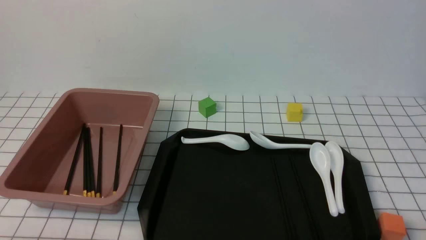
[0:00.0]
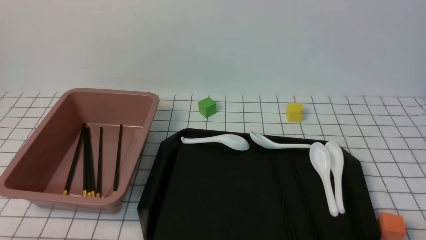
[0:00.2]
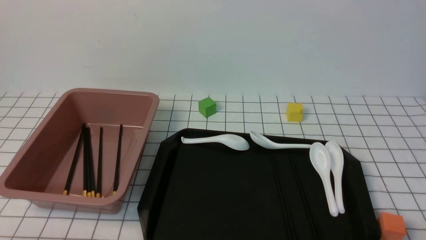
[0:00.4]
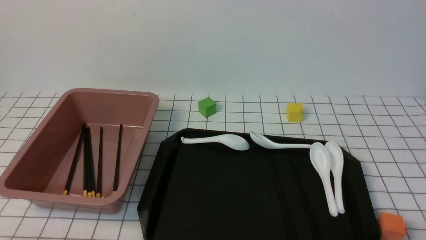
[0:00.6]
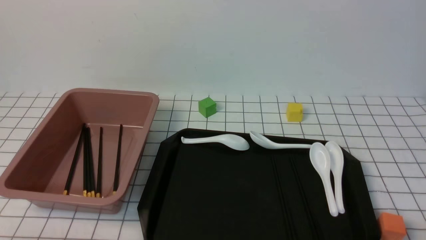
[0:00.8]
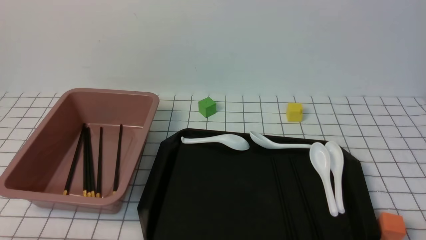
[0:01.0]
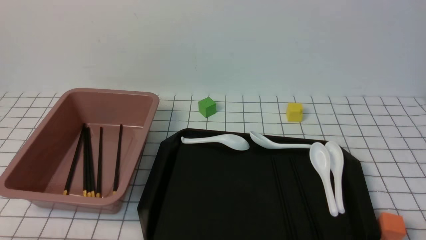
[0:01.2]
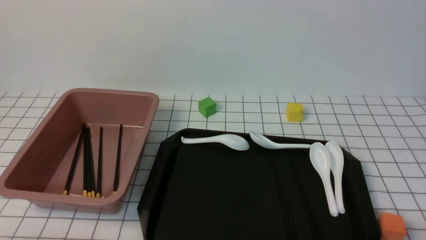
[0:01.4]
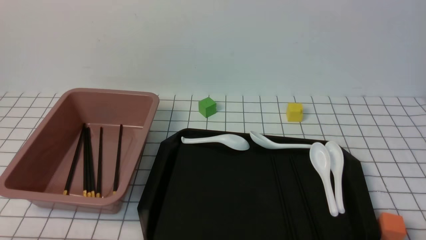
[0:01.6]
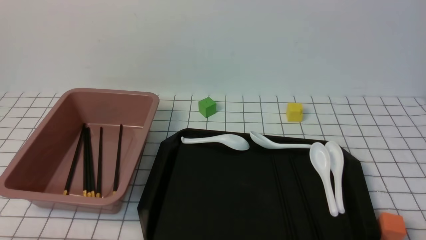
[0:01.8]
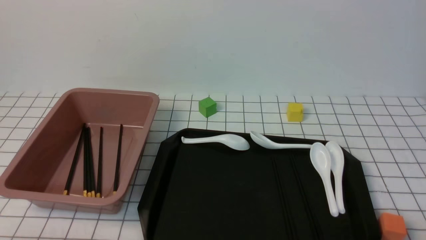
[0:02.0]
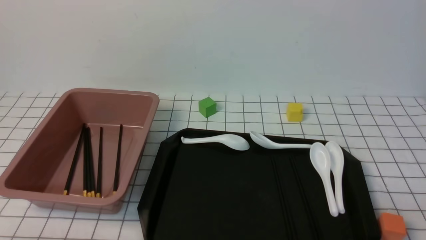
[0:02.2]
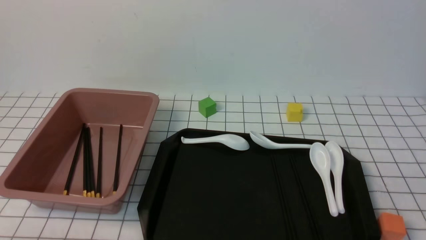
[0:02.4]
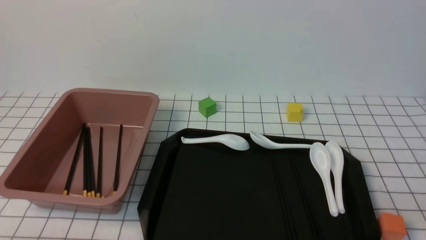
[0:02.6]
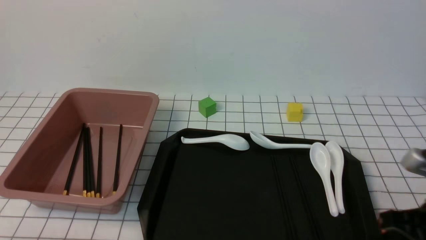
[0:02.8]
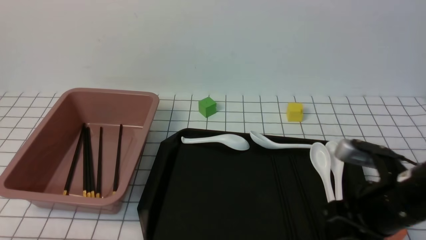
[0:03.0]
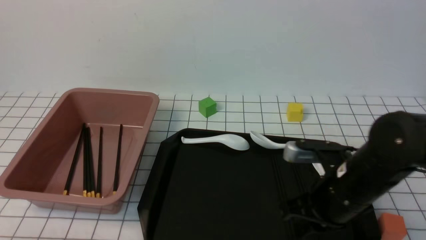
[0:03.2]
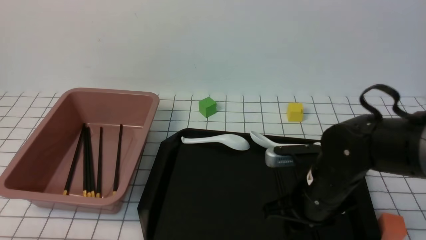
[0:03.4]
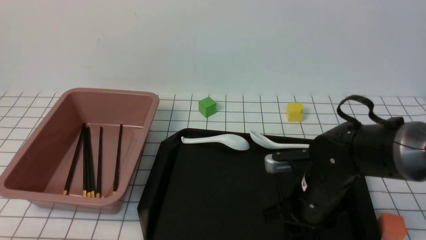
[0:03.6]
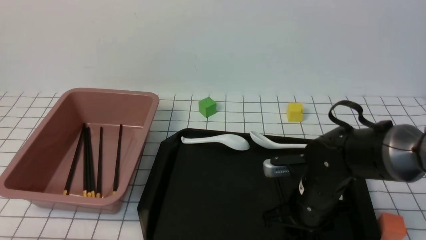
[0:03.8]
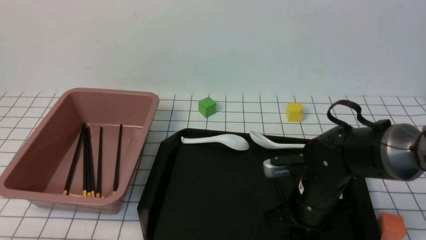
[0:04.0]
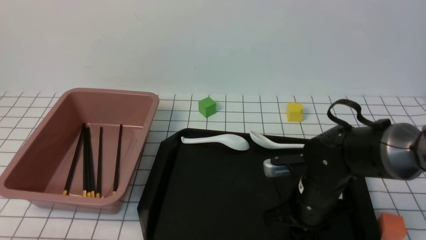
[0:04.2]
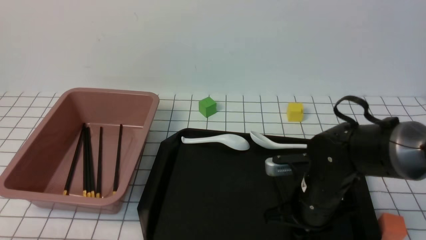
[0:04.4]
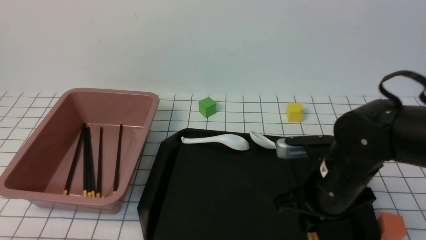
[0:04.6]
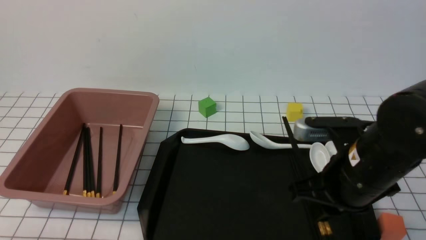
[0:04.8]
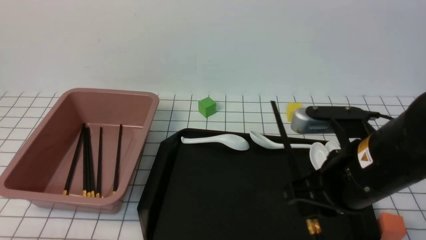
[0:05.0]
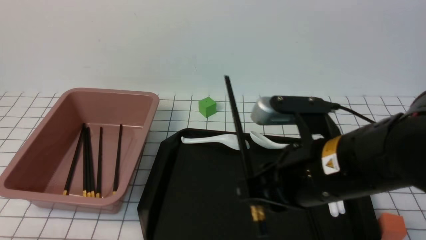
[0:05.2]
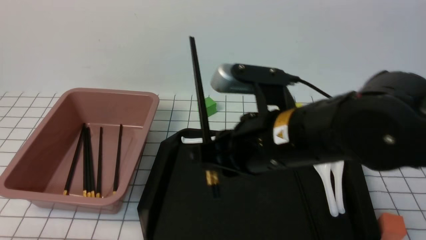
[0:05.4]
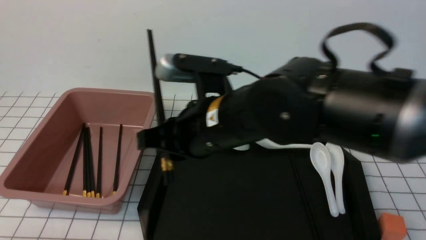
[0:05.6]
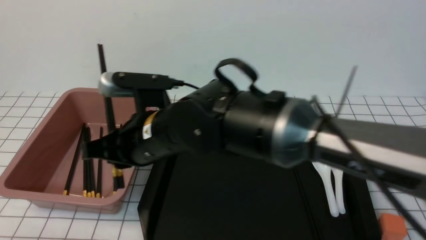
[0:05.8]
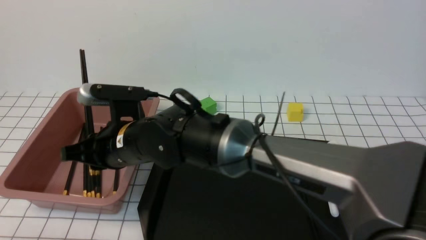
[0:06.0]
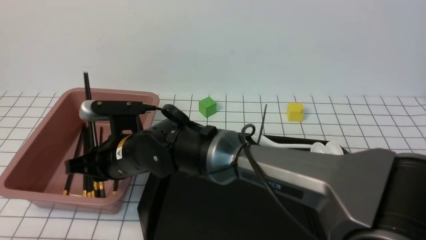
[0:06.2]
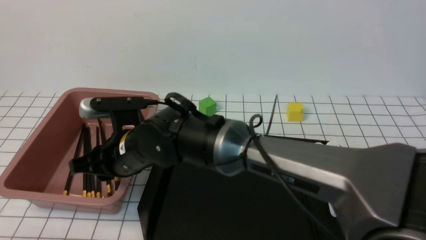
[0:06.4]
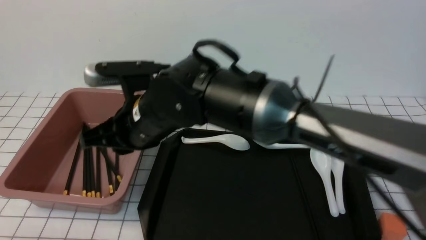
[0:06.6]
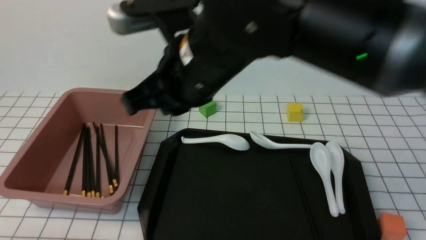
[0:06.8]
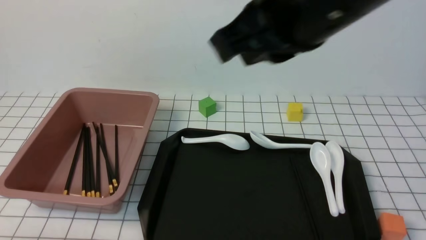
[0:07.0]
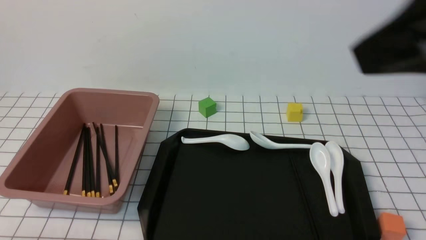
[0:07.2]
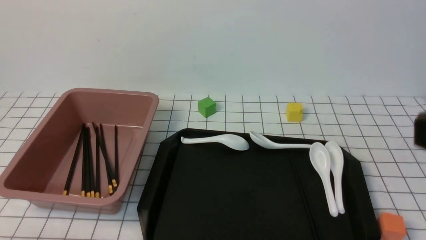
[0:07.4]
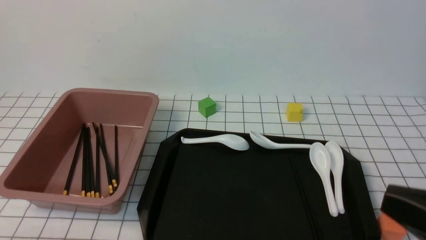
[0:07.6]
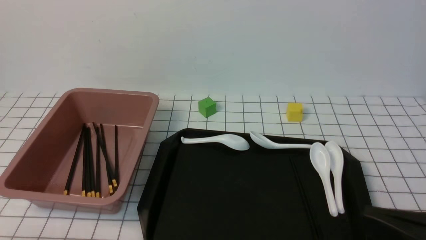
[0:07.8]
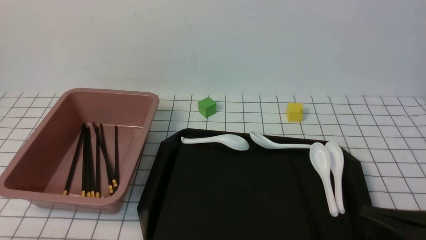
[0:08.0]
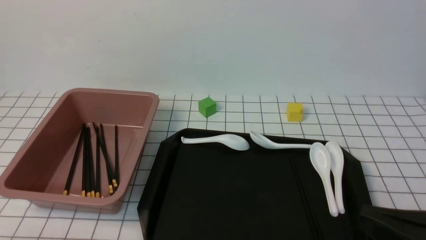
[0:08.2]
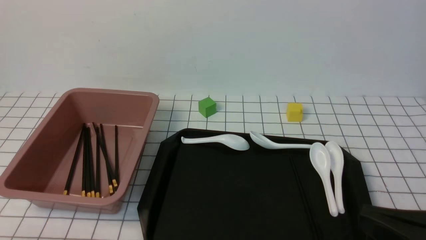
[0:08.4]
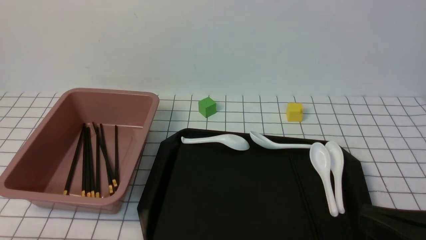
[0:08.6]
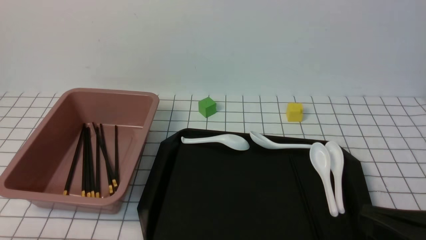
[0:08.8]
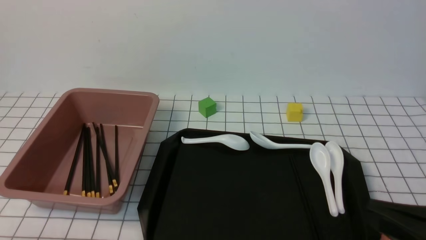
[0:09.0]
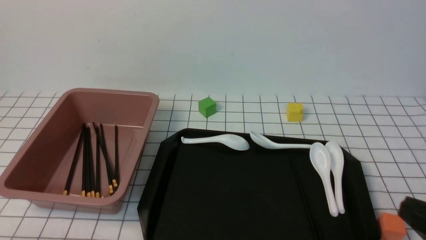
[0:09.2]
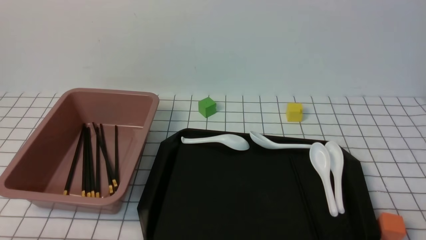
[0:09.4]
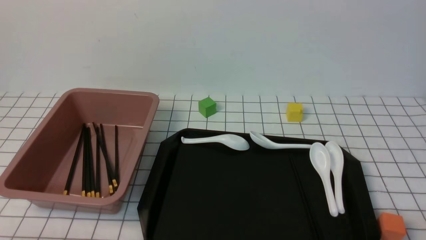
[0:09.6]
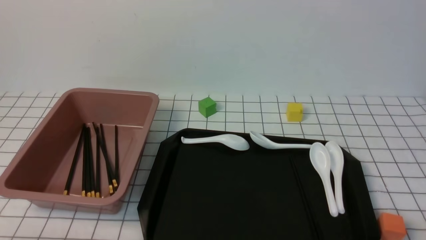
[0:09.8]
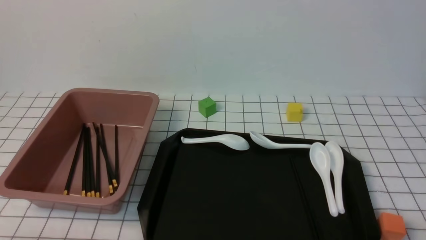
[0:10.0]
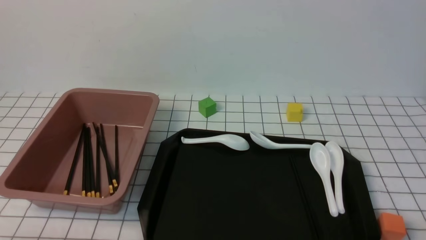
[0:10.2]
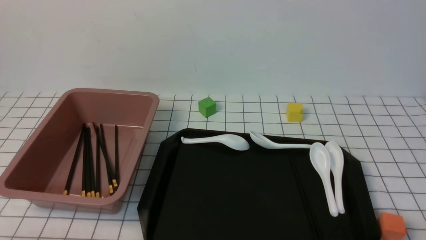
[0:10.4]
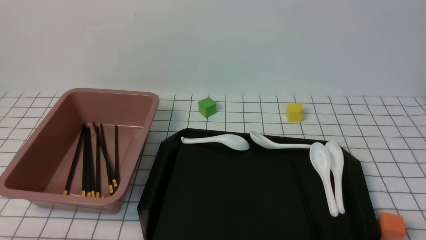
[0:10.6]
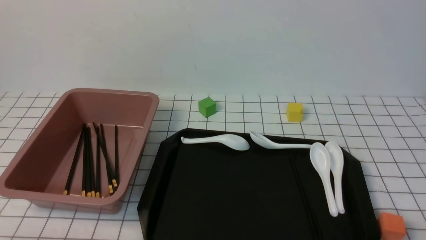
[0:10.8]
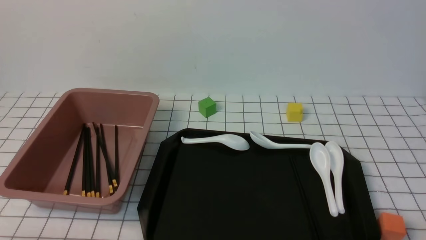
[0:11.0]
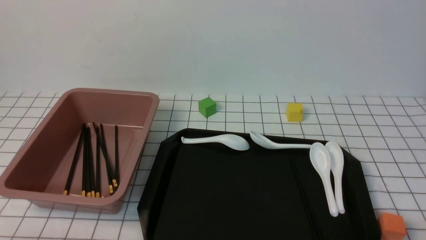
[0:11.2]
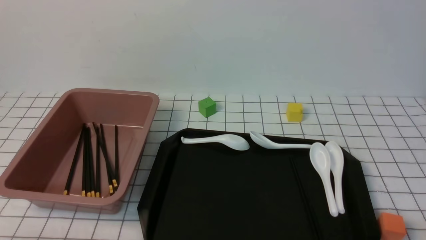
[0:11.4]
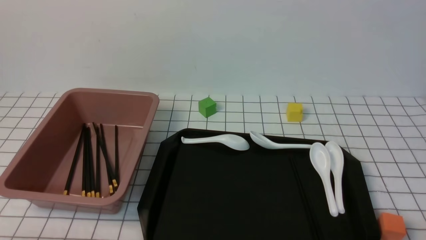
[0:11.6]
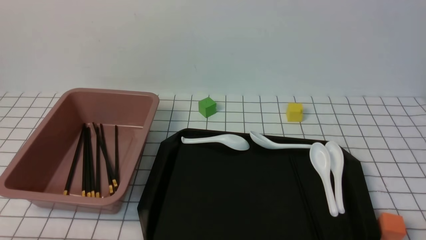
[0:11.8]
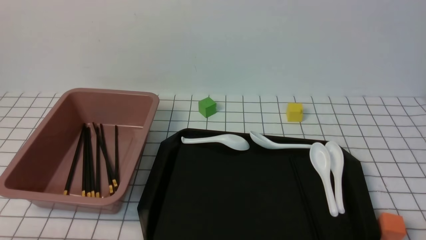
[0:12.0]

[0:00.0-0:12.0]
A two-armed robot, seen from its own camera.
Step, 0:00.0 to 0:04.8: use the right arm to grab a pair of chopsticks.
Step, 0:05.0 to 0:06.6: use the right arm to put the chopsticks into the lunch box.
0:01.6 to 0:03.0: The right gripper heads forward and to the left, covering roughly 20 cm, and closes its fingers.
0:03.0 to 0:04.4: The right gripper shifts some 10 cm to the left, and opens, then closes once more.
0:04.4 to 0:06.0: The right gripper moves to the left, roughly 25 cm.
0:06.0 to 0:07.6: The right gripper heads to the right and backward, covering roughly 40 cm, and closes its fingers.
0:07.6 to 0:09.0: The right gripper is displaced downward by about 5 cm.
0:09.0 to 0:10.4: The right gripper shifts approximately 15 cm downward and to the right.
0:10.4 to 0:12.0: Both grippers stay put.

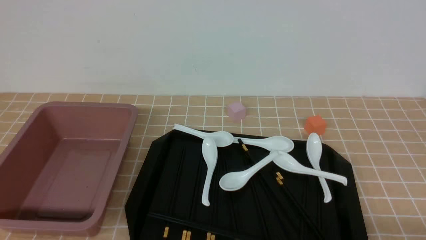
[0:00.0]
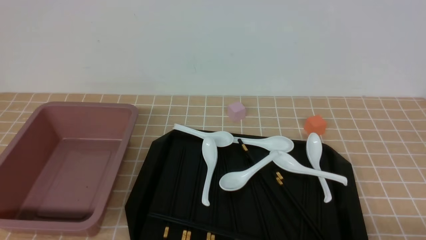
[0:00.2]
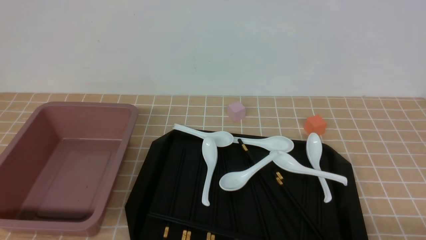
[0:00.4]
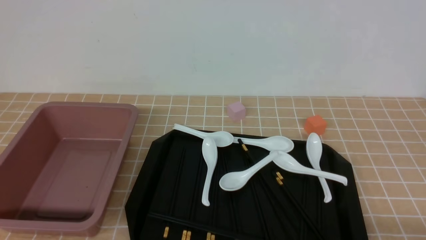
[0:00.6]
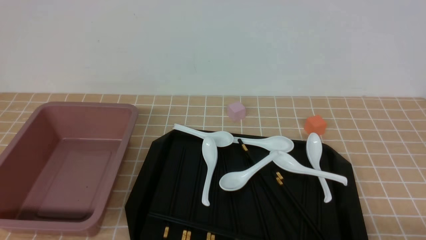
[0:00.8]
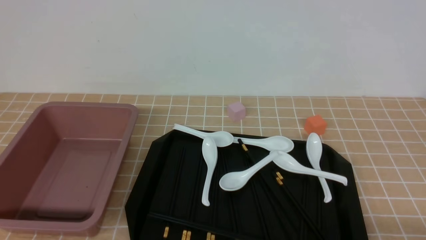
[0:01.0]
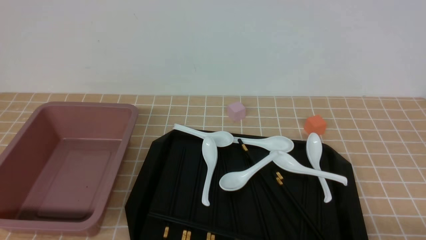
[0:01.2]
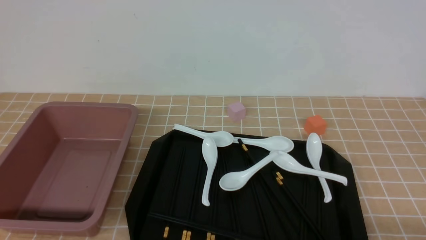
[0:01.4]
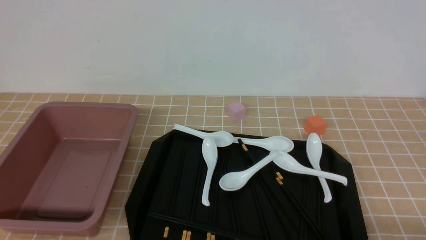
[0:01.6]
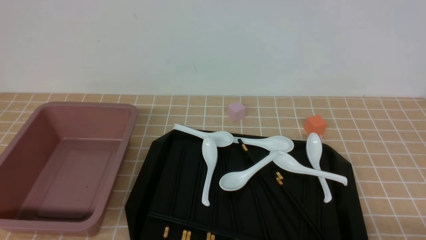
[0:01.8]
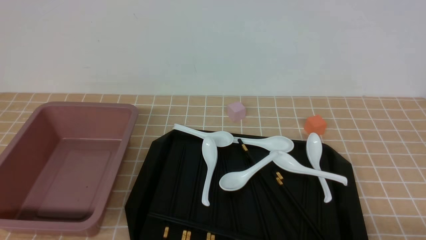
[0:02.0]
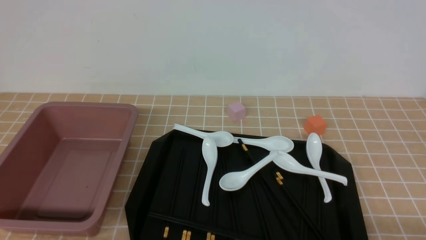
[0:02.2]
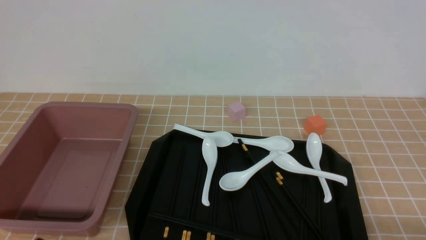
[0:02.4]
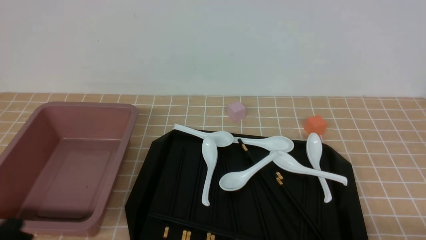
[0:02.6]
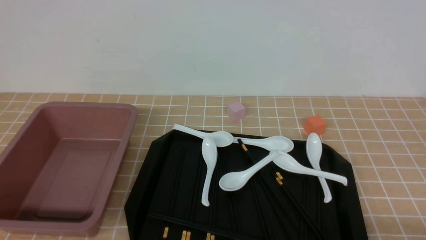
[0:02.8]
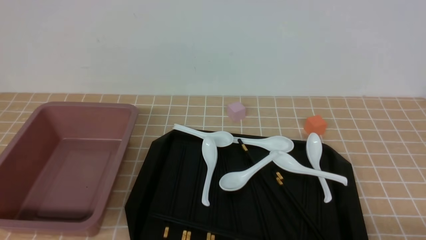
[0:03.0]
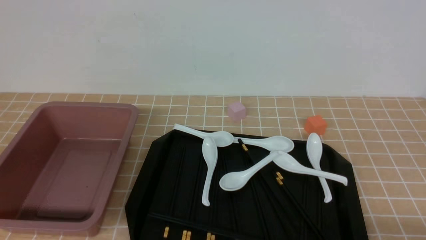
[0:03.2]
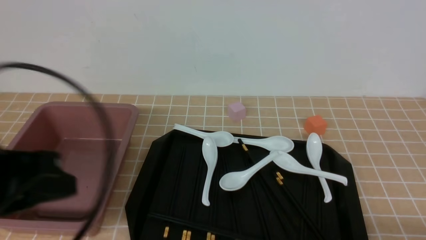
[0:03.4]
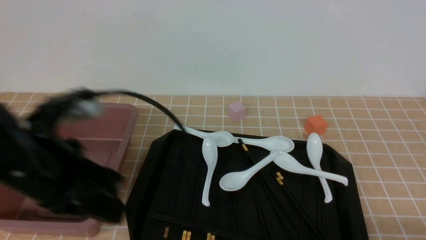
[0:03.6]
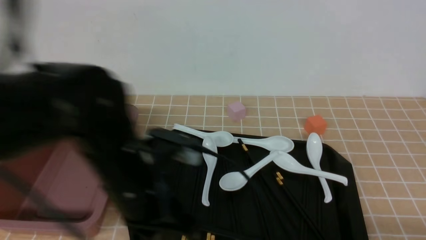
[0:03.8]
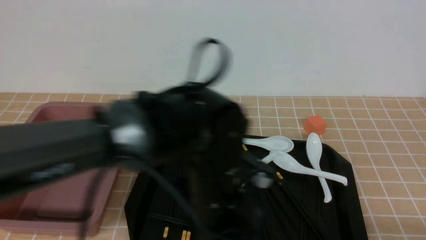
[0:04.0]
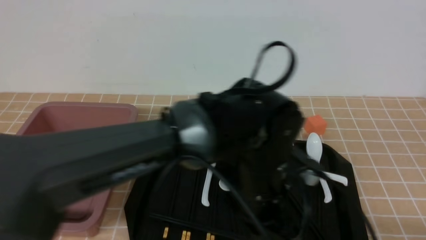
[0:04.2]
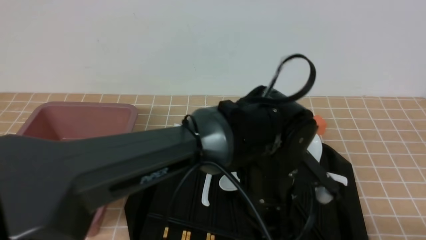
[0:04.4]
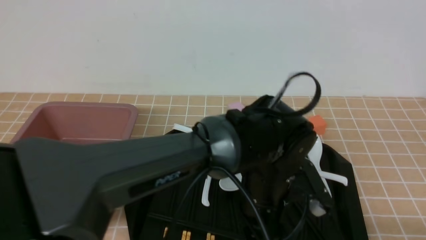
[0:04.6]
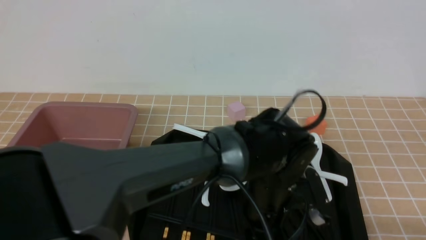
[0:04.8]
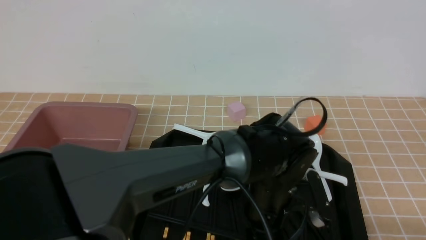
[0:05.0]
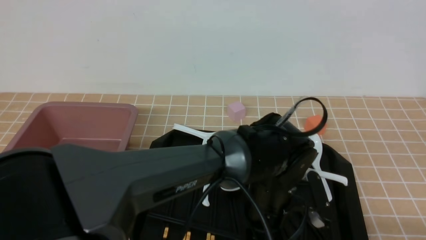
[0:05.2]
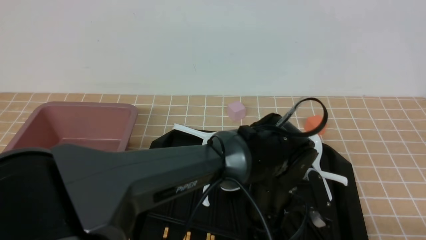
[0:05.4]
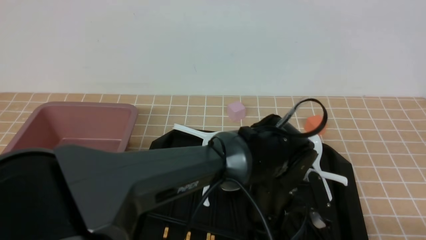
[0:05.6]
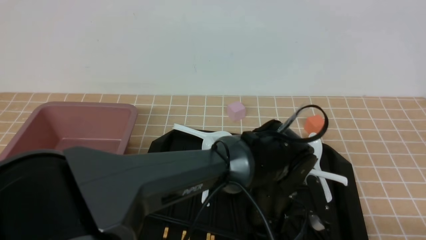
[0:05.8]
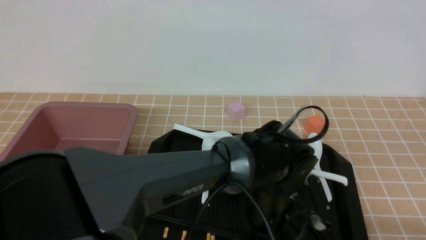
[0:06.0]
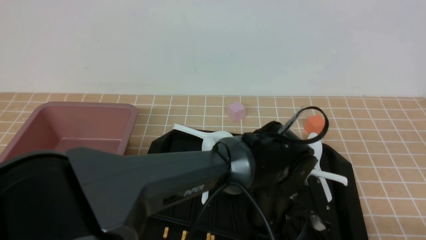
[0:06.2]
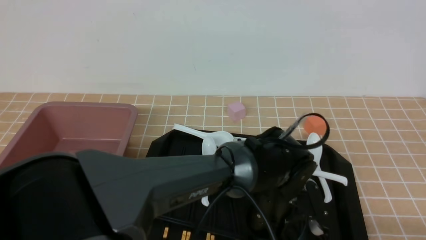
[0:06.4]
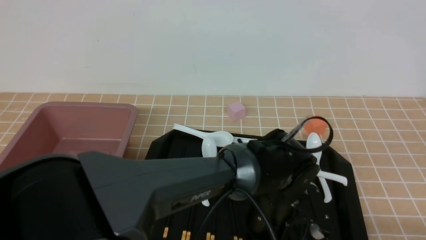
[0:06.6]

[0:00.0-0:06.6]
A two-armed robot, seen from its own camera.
0:00.0 to 0:01.6: The two grippers keep their place.
0:03.2 to 0:05.0: The left gripper goes approximately 40 cm to the right, forward and downward, and opens its fingers.
0:05.0 to 0:06.6: The left gripper closes its fingers.
